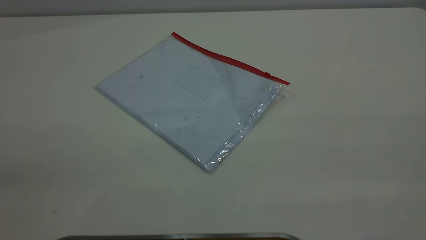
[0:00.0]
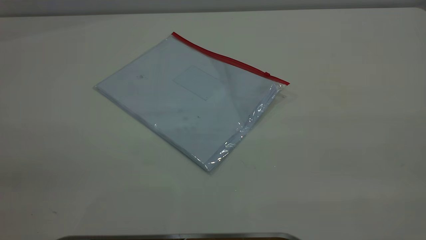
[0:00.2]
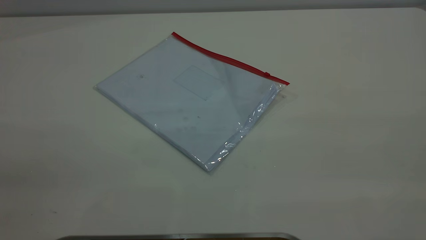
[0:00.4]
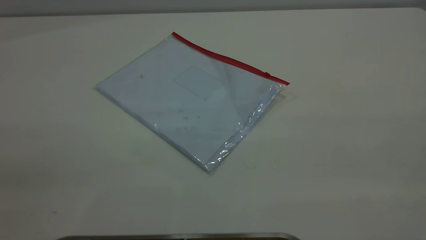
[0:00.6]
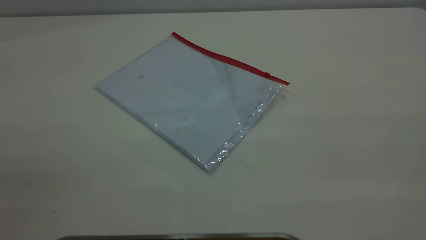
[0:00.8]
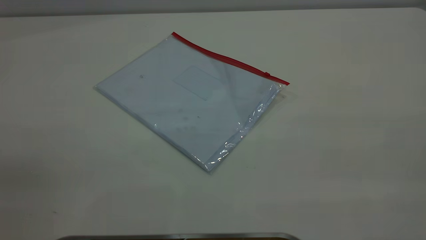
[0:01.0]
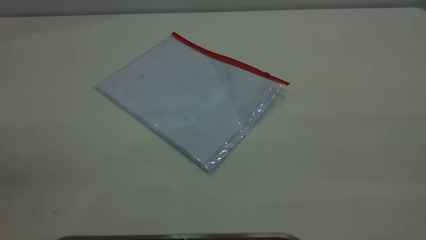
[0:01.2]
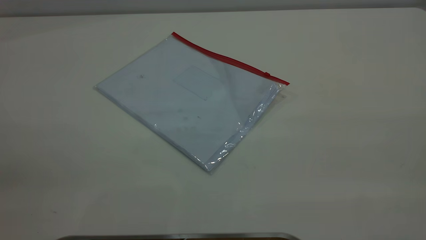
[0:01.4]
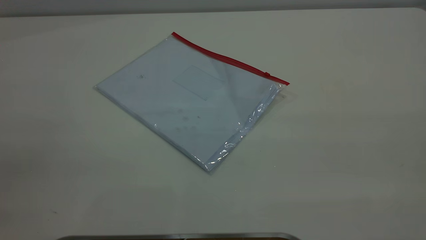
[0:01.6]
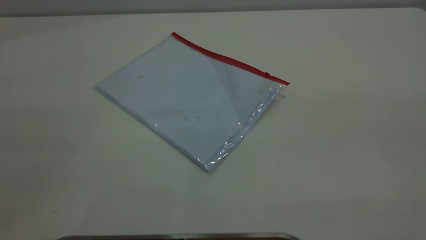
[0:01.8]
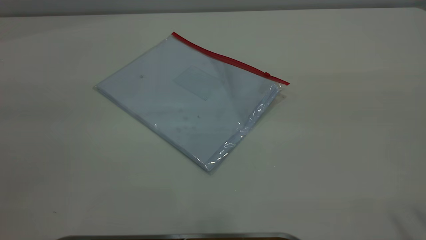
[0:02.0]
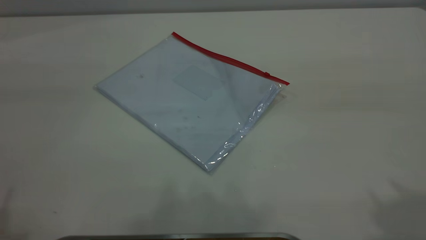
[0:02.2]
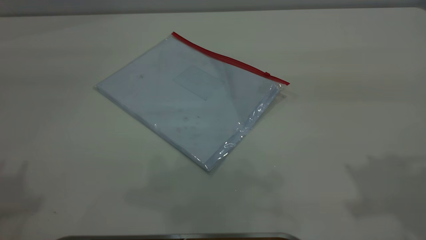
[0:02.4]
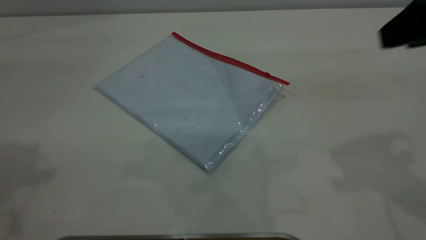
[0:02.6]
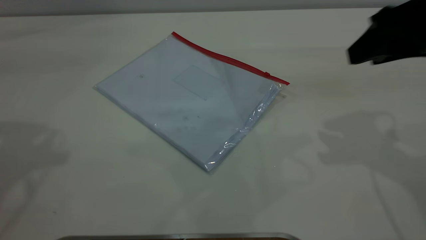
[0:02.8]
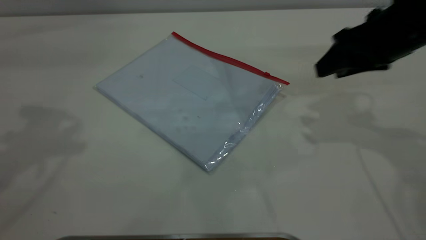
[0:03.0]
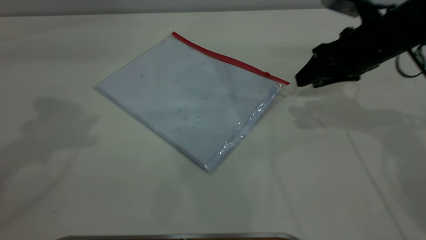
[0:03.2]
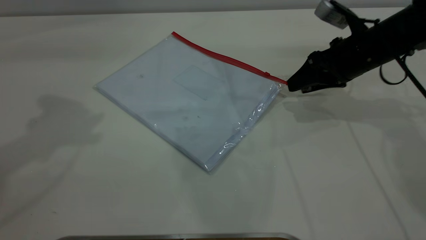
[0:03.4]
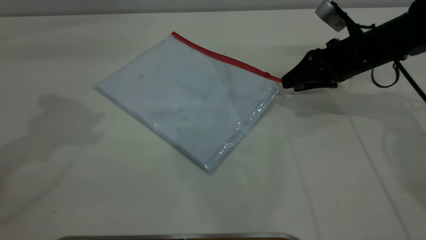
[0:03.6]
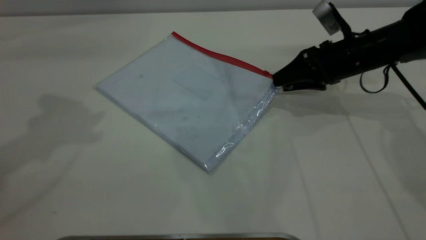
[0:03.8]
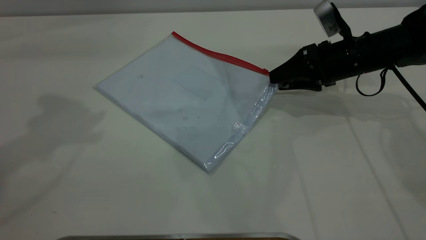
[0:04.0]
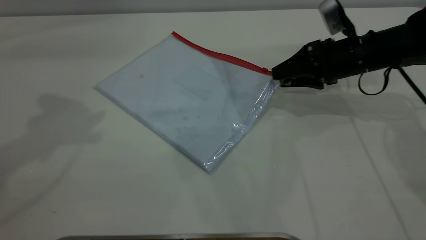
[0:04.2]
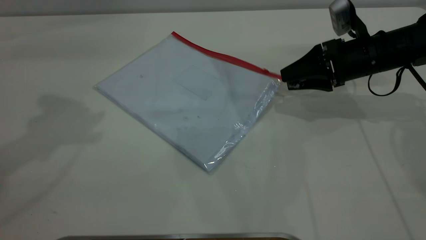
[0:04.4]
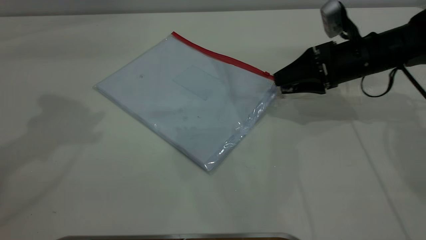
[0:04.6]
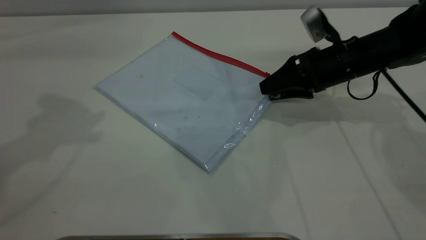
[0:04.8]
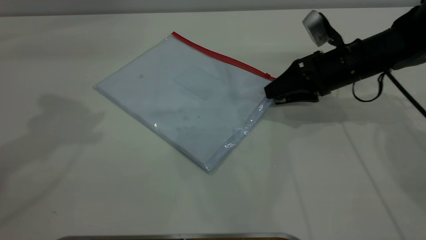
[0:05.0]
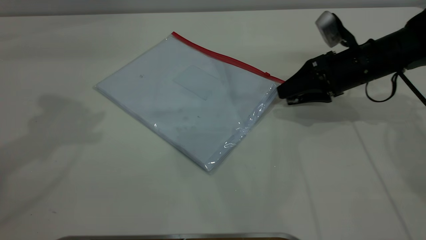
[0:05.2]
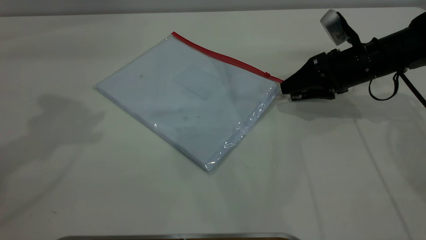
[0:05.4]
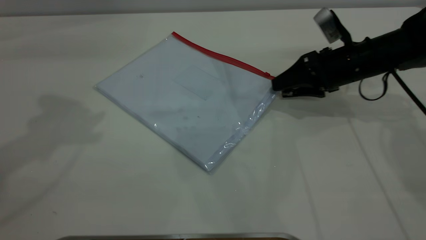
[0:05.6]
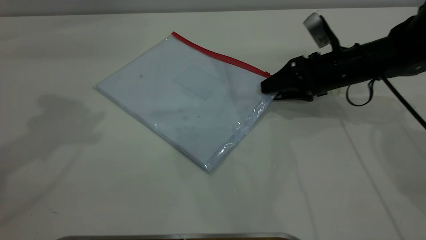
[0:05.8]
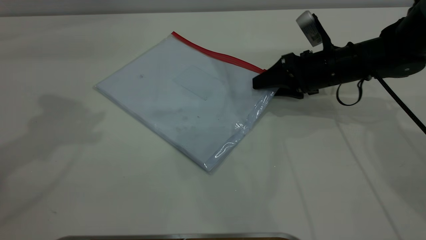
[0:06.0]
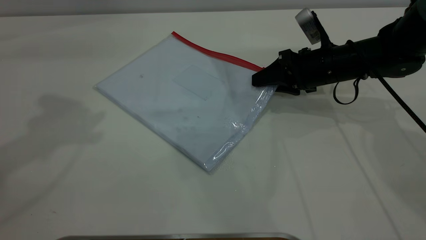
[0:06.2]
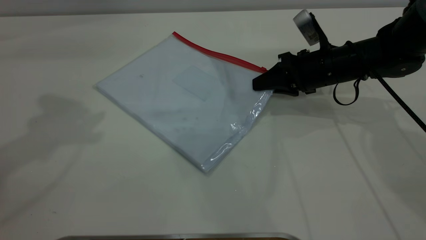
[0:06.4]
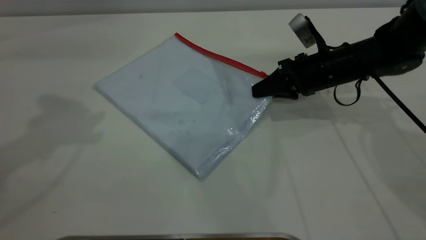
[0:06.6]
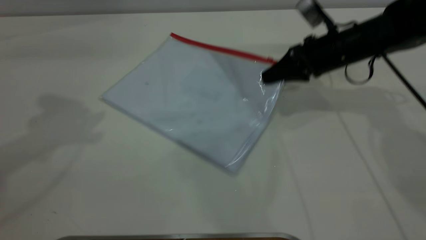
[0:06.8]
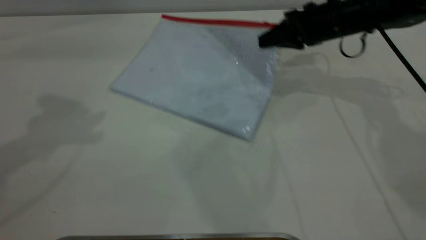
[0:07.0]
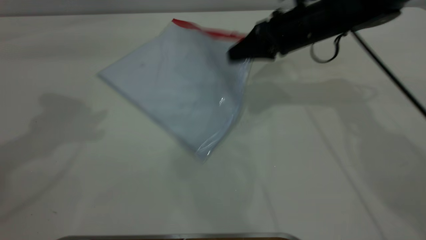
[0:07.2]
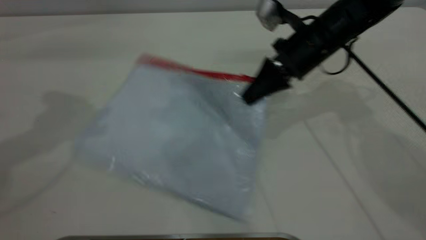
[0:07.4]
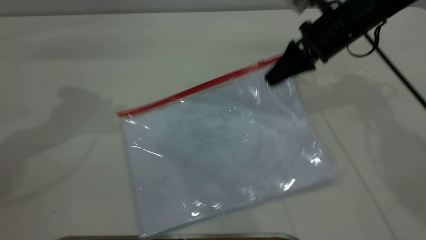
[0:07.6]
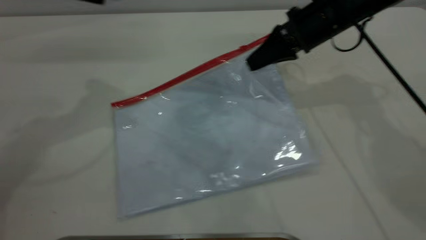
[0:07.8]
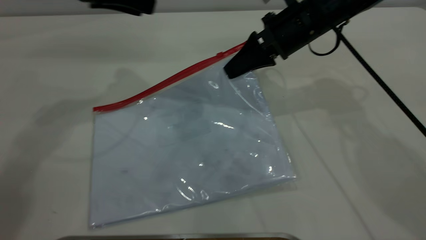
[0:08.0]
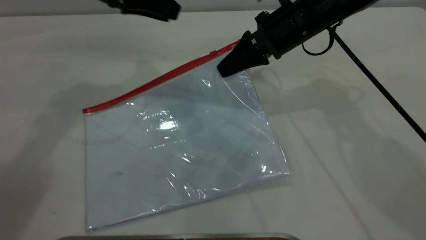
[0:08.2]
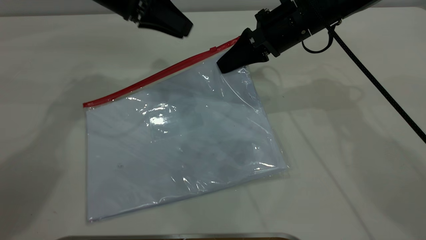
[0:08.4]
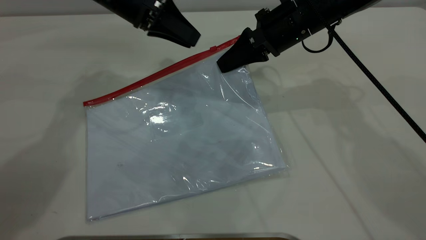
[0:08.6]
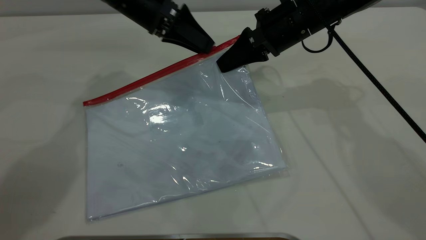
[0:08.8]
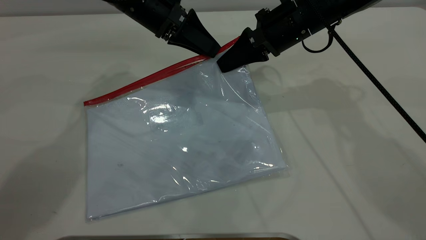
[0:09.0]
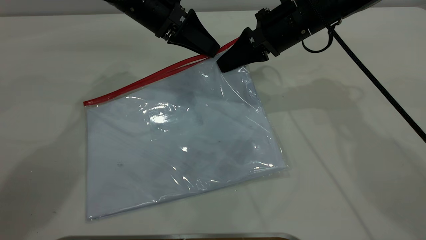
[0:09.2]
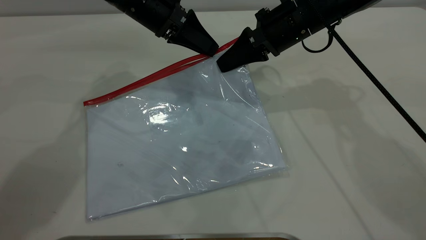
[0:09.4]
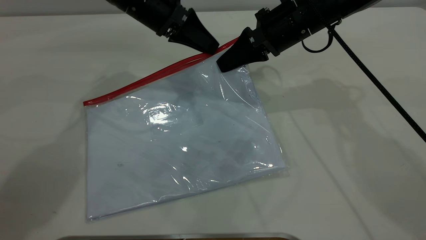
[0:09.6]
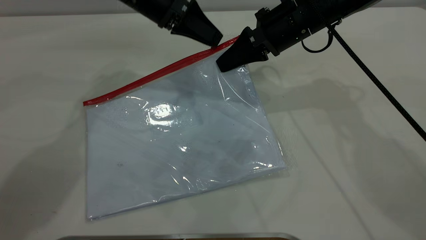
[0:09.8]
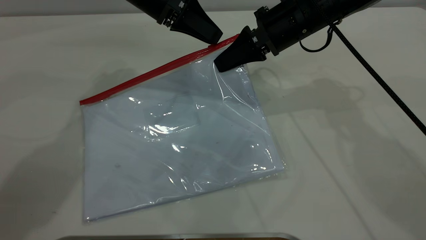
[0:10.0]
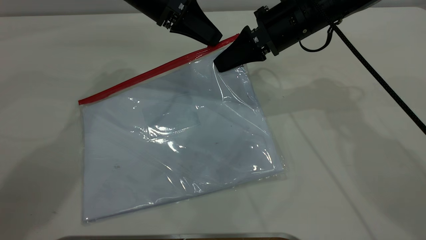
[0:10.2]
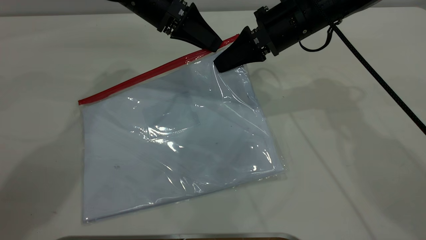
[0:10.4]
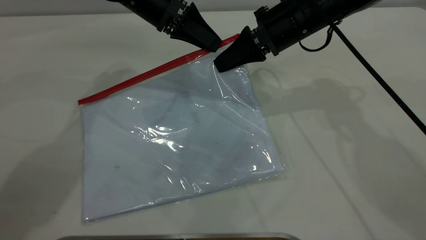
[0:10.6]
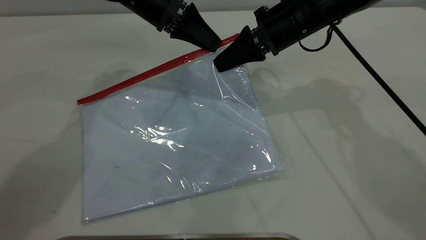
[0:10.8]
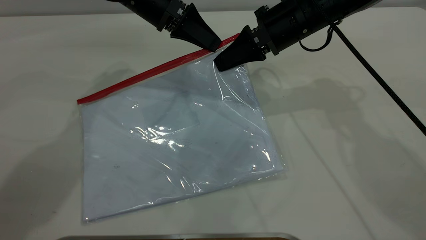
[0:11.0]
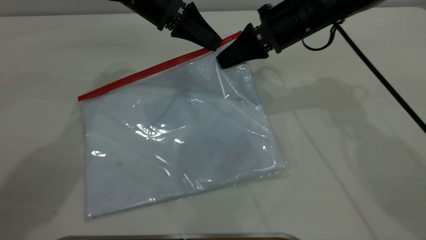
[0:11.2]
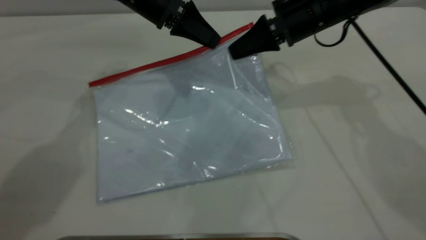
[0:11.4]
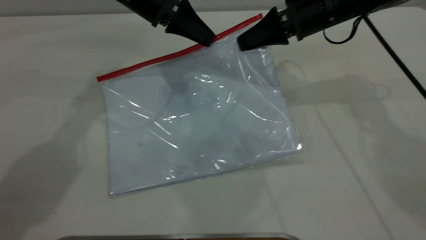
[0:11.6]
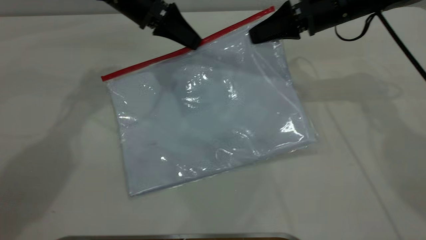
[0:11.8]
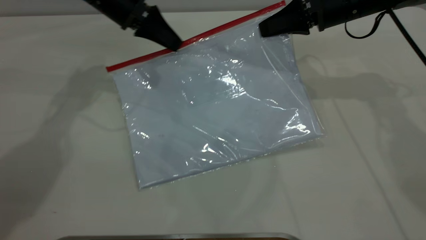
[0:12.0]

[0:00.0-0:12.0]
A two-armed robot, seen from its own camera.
Step, 0:00.0 to 0:07.8: Pick up the transparent plastic bag with the right gripper.
0:01.6 to 0:03.0: The right gripper travels forward and downward by approximately 40 cm.
0:03.0 to 0:04.4: The right gripper is displaced downward and forward by approximately 10 cm.
0:04.4 to 0:06.0: The right gripper changes place by roughly 5 cm.
0:06.0 to 0:07.6: The right gripper heads upward, covering approximately 10 cm, and closes; the left gripper changes place by approximately 5 cm.
0:07.6 to 0:09.0: The left gripper moves to the right, downward and forward, about 20 cm; the right gripper moves to the left, roughly 5 cm.
0:09.0 to 0:10.4: The left gripper closes, then reopens.
0:10.4 to 0:12.0: The right gripper is displaced to the right by some 10 cm. The left gripper goes roughly 5 cm to the left, and closes.

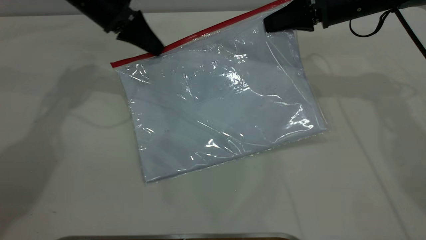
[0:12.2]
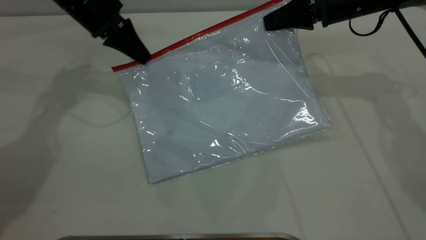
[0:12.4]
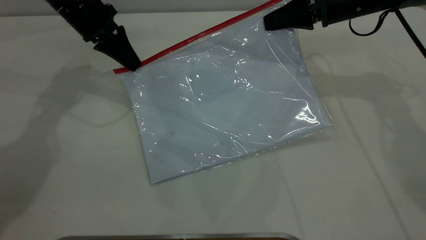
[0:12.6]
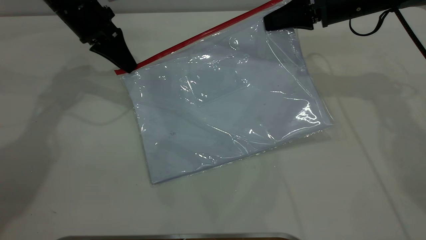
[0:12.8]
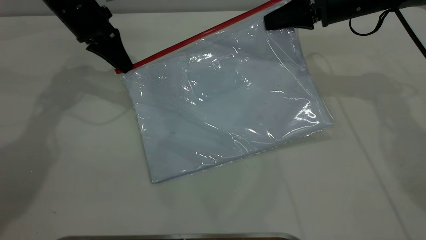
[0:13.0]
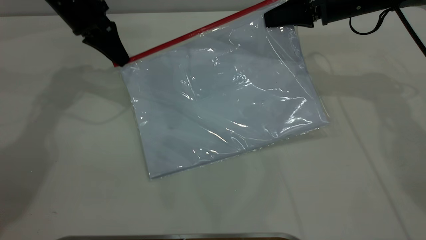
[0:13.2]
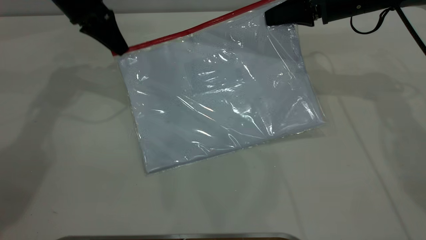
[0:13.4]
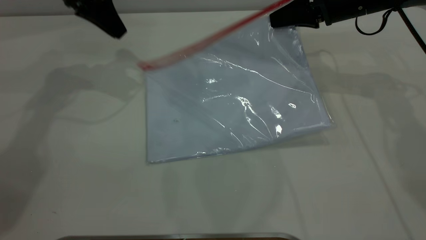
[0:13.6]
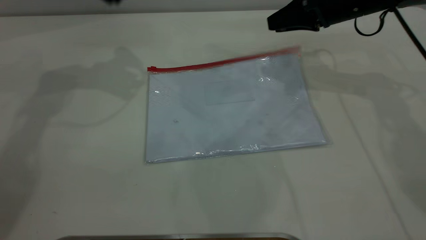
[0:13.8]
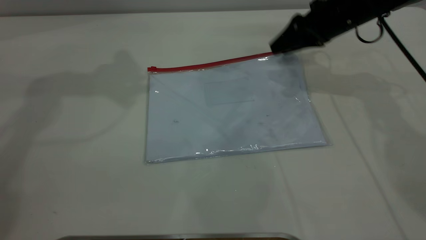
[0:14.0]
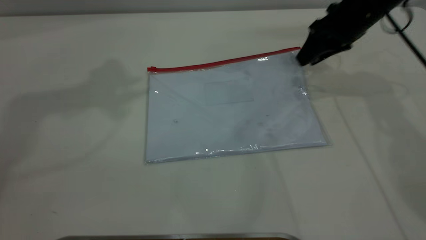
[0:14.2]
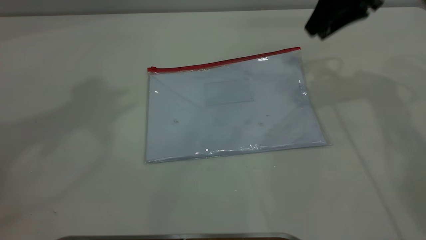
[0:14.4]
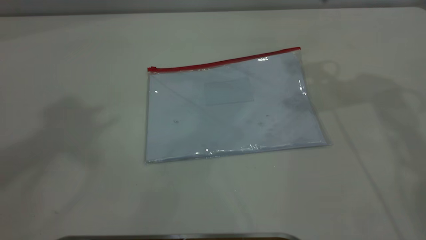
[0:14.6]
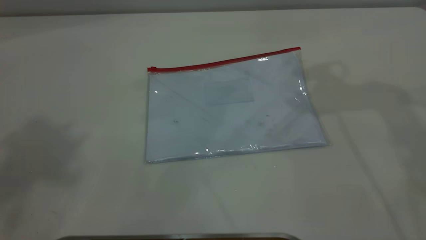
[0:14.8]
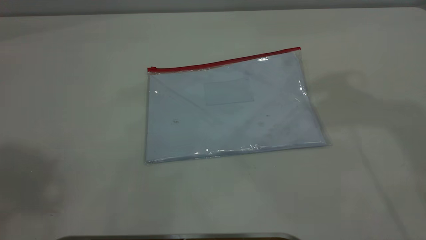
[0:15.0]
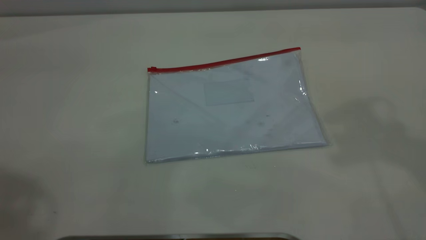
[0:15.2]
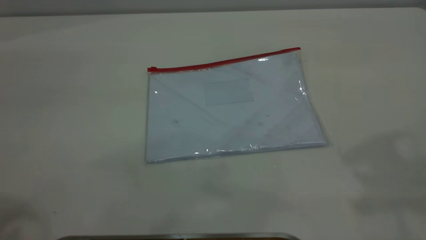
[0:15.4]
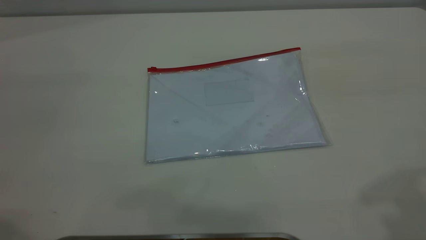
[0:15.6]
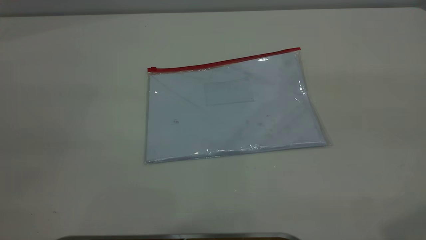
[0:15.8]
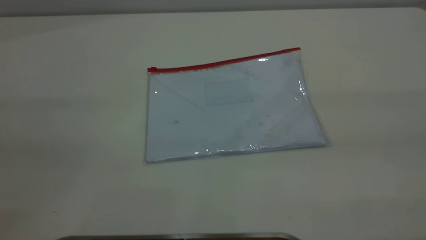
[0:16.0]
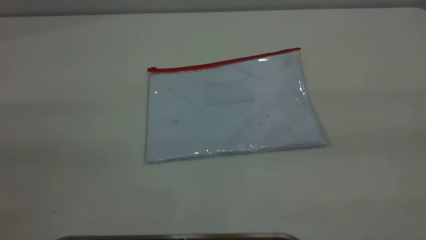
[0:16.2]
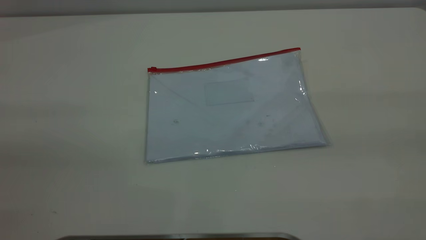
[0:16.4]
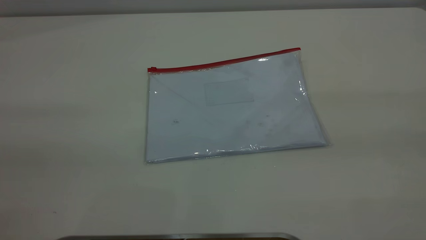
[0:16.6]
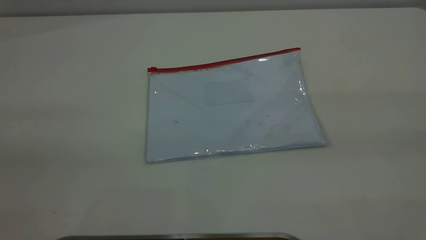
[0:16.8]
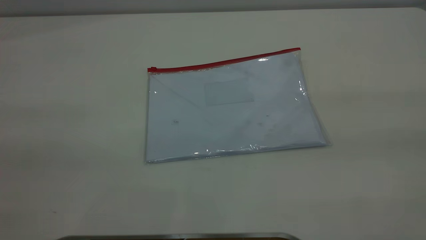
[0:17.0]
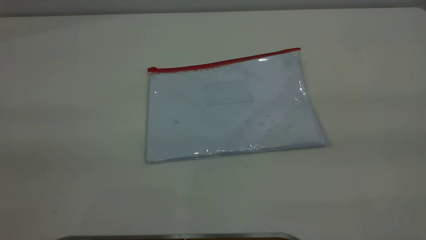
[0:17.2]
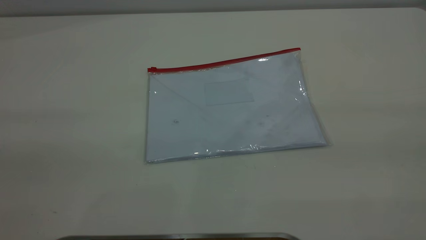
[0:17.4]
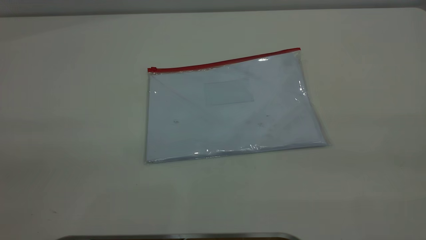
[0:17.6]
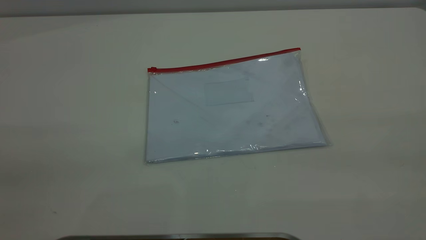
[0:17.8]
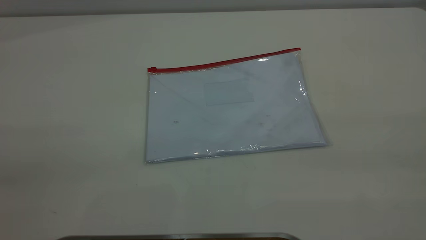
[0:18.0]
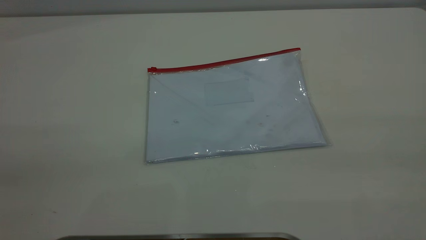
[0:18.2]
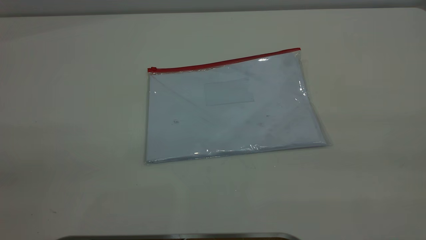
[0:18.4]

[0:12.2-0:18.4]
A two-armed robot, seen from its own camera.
Step, 0:13.6 to 0:14.4: Place the transparent plastic bag.
0:12.2 to 0:13.8: The left gripper moves upward, approximately 15 cm, and opens its fingers. The right gripper opens.
0:13.8 to 0:15.4: The right gripper travels upward and backward by some 40 cm.
